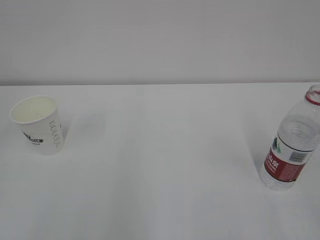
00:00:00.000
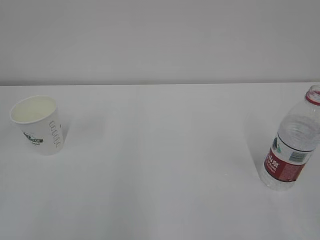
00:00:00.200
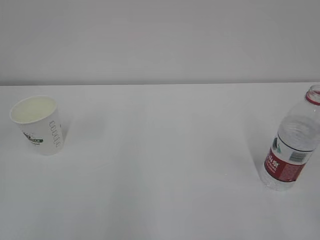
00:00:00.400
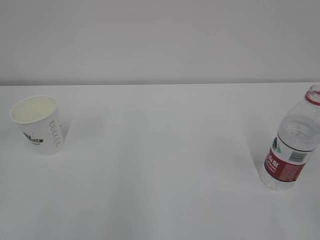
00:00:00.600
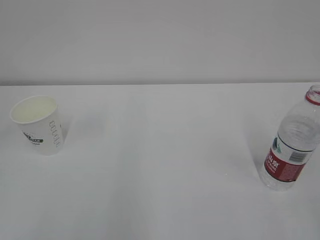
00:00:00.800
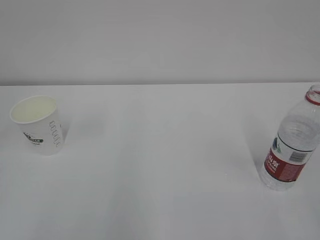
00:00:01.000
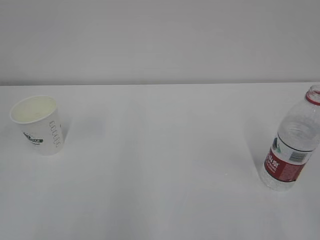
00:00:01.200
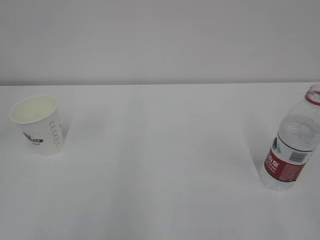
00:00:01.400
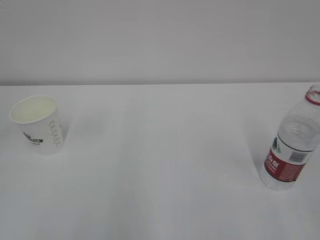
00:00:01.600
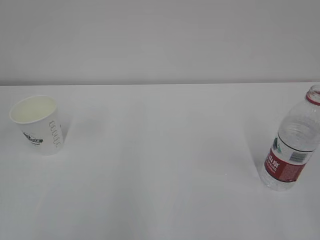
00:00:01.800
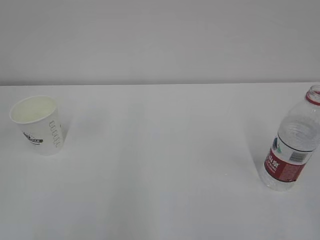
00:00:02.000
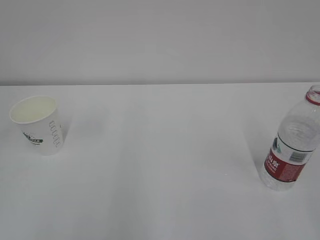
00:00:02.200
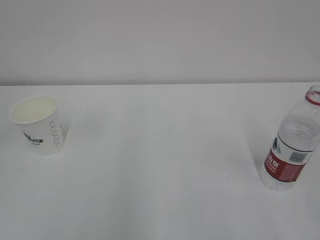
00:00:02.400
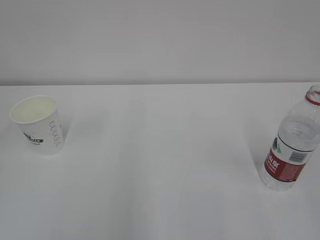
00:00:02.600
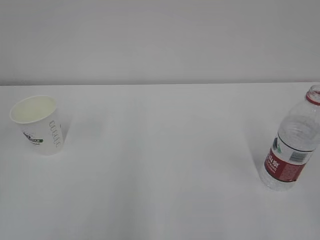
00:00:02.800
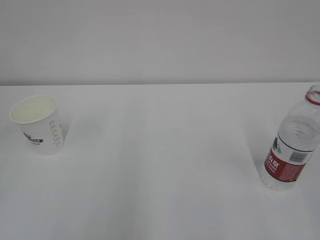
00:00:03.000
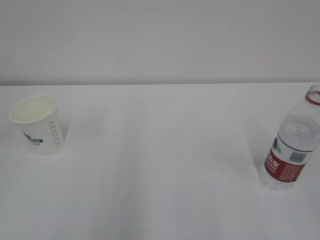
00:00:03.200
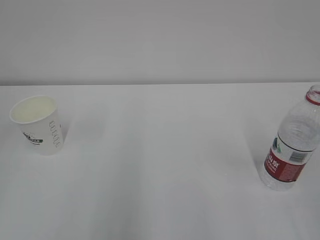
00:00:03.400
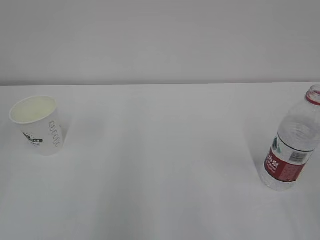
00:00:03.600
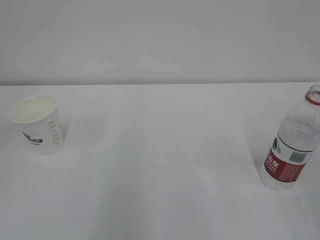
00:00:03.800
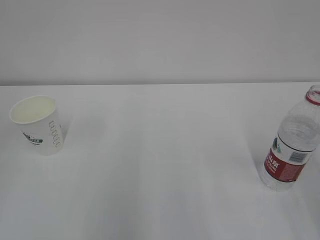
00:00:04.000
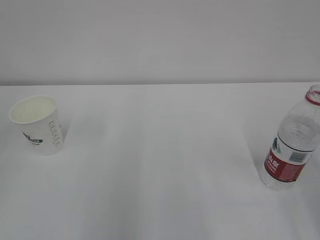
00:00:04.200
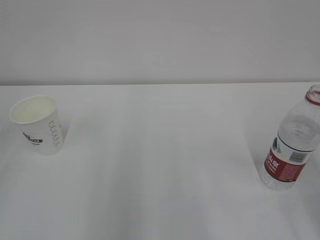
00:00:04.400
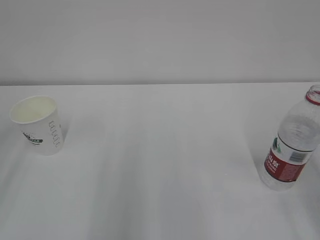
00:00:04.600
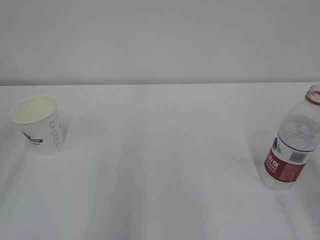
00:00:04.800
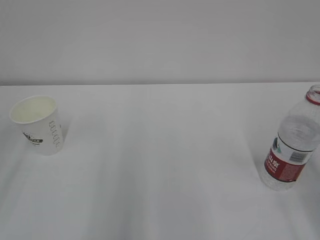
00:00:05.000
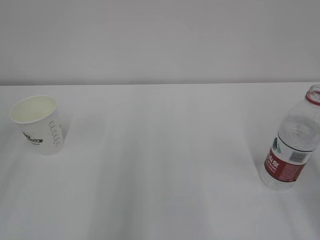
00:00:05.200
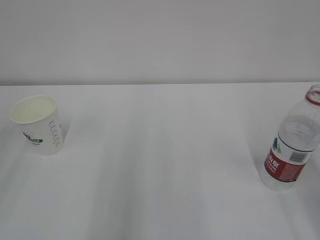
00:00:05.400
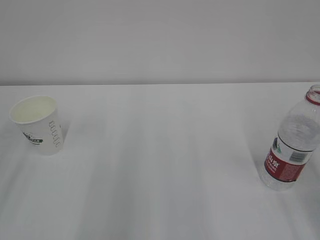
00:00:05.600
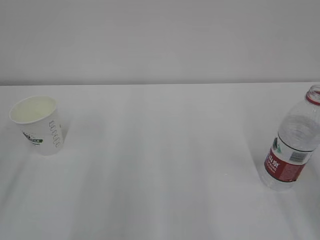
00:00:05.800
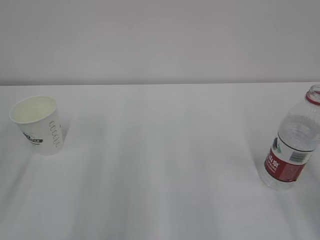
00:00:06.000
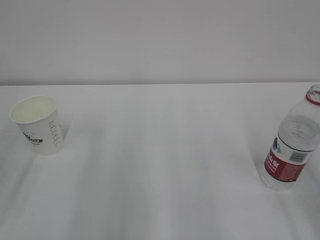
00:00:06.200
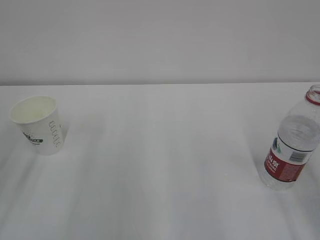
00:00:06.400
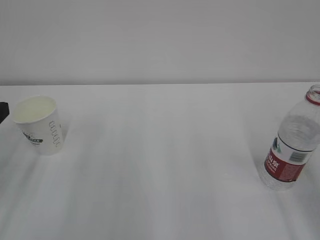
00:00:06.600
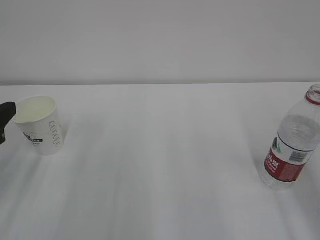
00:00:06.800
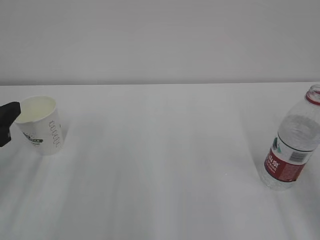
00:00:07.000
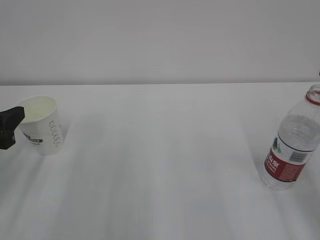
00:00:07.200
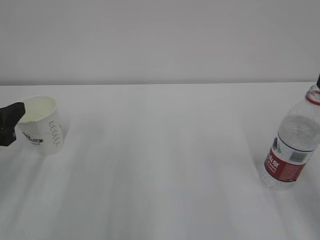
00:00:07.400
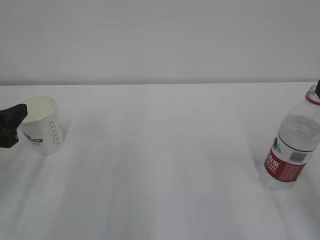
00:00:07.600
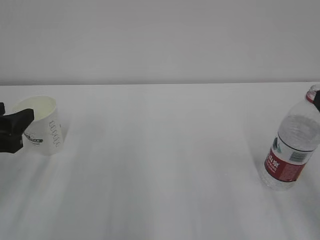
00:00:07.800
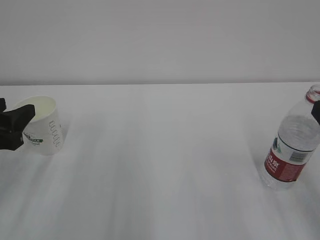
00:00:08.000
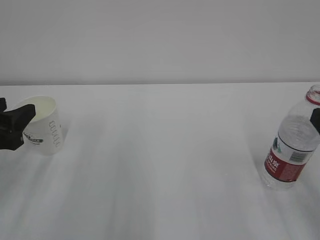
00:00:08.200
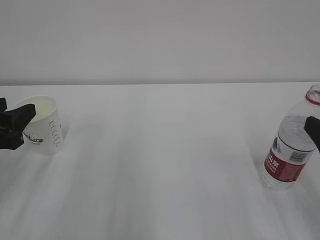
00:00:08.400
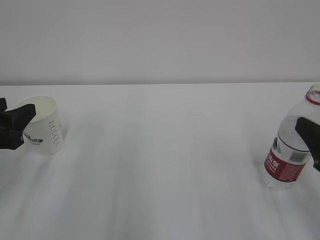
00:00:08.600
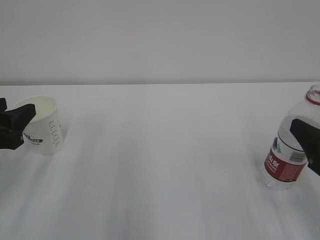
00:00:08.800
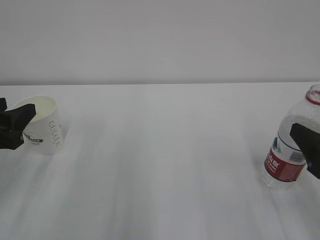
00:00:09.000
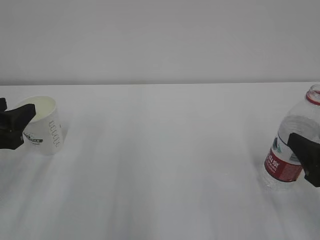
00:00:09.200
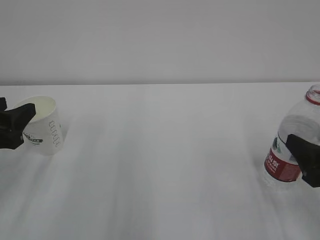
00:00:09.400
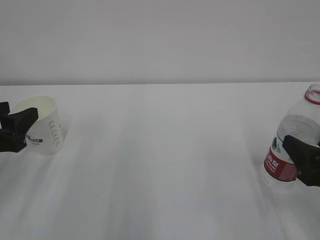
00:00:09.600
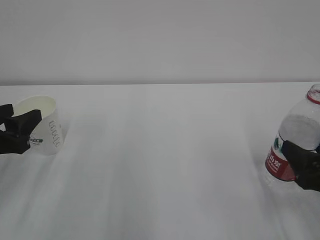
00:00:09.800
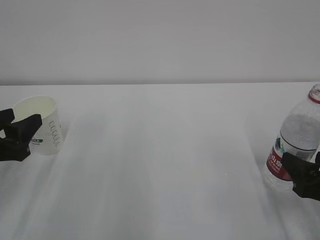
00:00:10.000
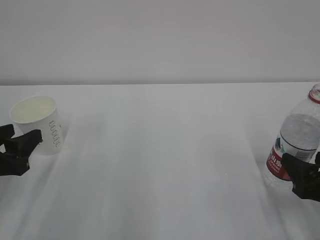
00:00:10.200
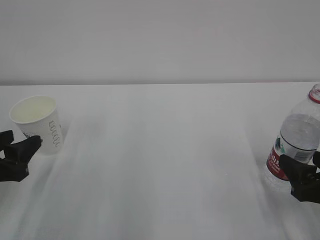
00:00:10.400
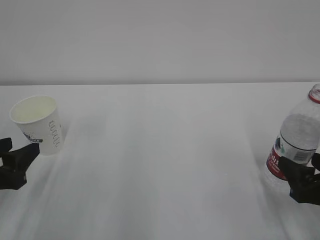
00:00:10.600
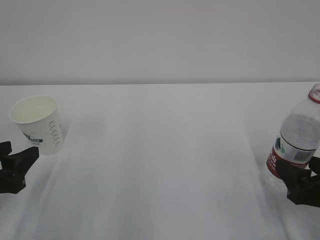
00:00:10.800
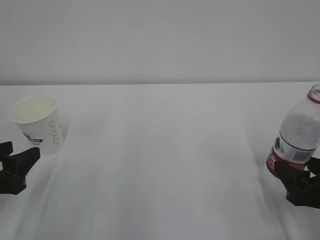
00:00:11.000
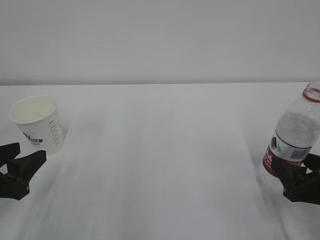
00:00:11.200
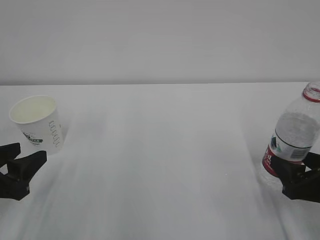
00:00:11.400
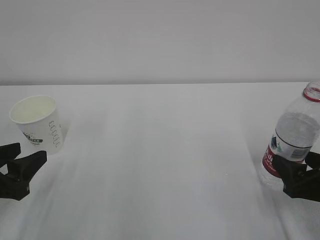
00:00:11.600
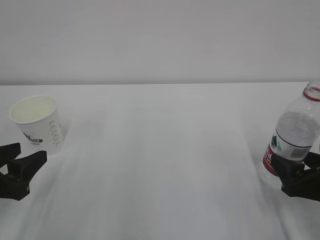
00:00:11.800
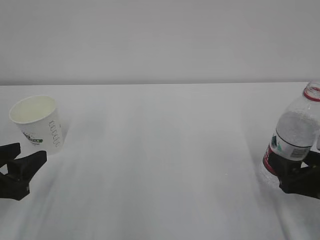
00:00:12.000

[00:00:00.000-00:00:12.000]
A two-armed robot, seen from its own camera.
00:00:06.000 to 00:00:07.600: The left gripper travels forward and downward by approximately 10 cm.
00:00:07.600 to 00:00:09.000: The right gripper moves downward, roughly 5 cm.
00:00:09.000 to 00:00:10.400: The right gripper shifts roughly 5 cm downward. The left gripper changes place by about 5 cm.
00:00:10.400 to 00:00:12.000: There are only small adjustments of the grippers.

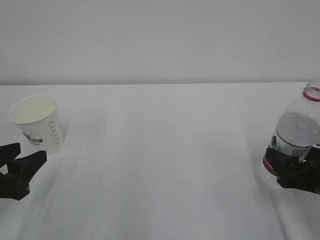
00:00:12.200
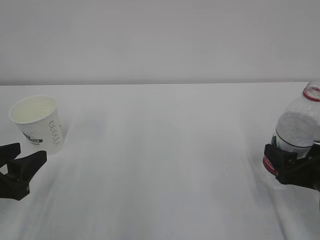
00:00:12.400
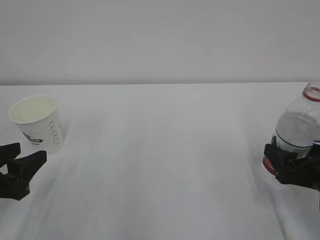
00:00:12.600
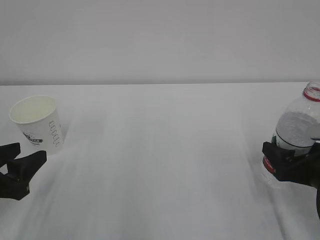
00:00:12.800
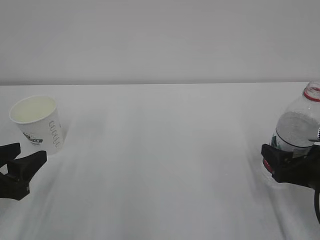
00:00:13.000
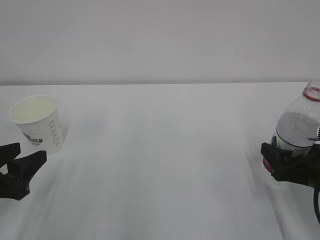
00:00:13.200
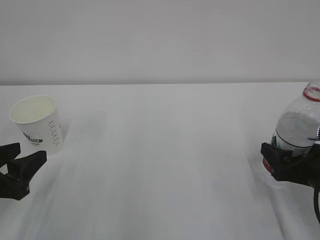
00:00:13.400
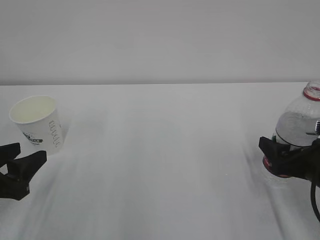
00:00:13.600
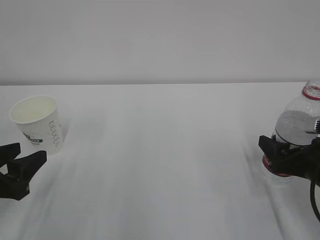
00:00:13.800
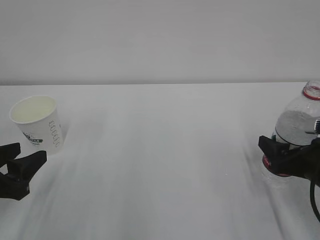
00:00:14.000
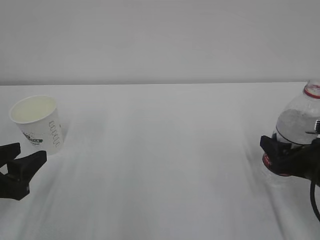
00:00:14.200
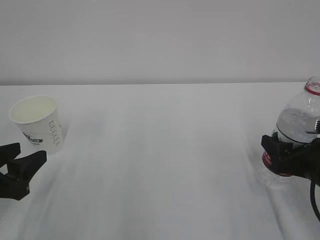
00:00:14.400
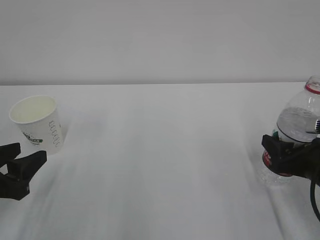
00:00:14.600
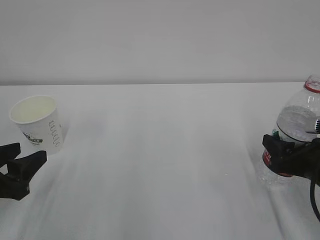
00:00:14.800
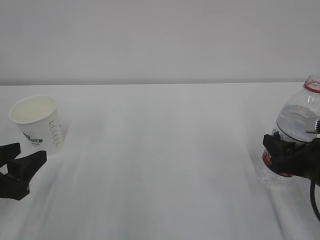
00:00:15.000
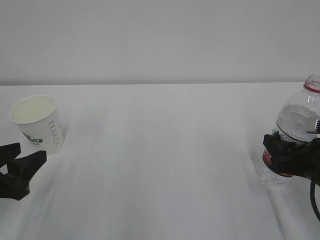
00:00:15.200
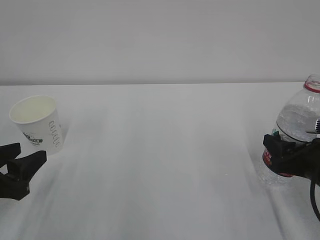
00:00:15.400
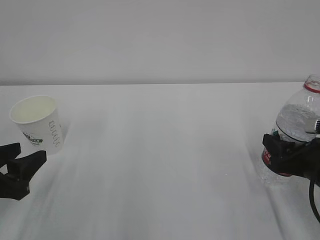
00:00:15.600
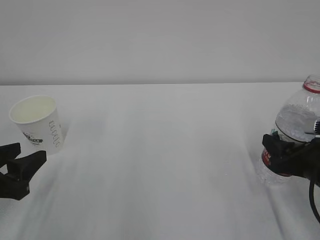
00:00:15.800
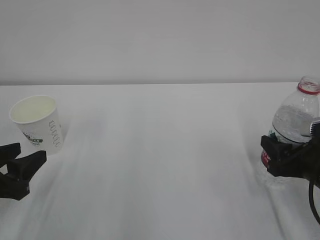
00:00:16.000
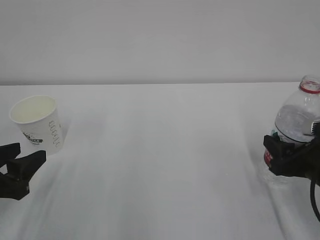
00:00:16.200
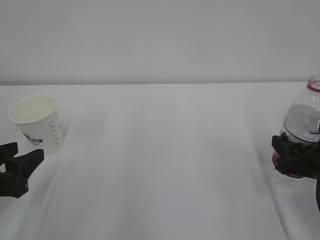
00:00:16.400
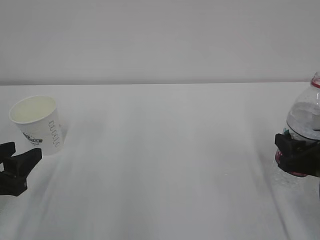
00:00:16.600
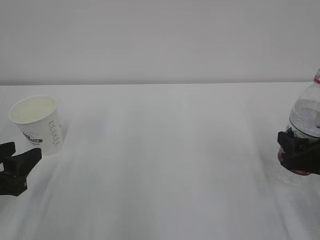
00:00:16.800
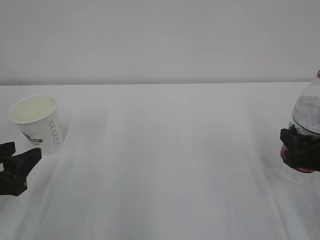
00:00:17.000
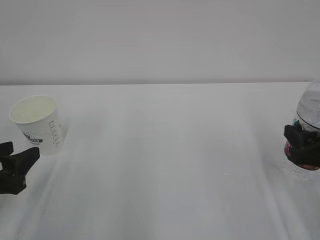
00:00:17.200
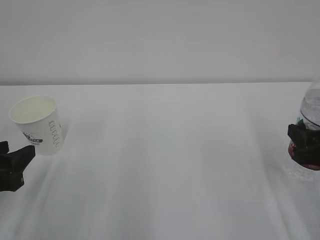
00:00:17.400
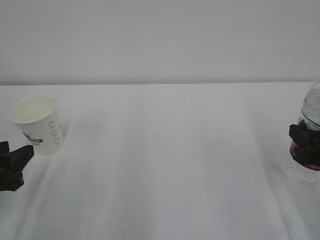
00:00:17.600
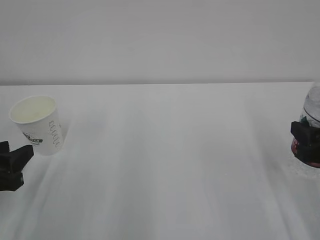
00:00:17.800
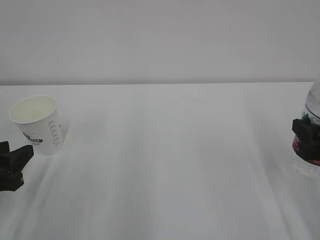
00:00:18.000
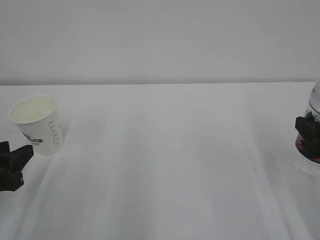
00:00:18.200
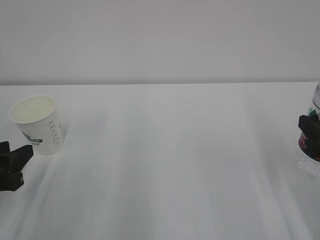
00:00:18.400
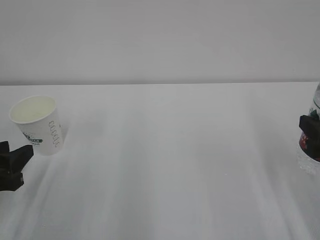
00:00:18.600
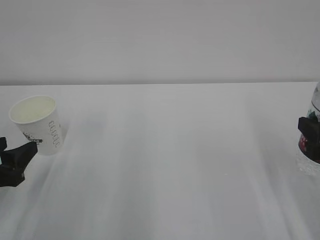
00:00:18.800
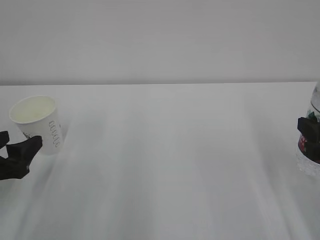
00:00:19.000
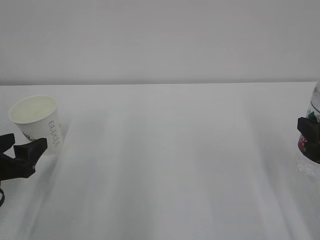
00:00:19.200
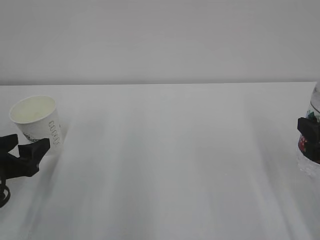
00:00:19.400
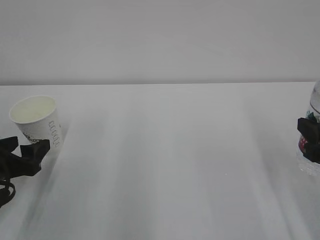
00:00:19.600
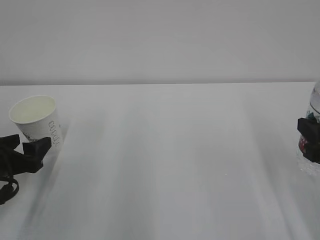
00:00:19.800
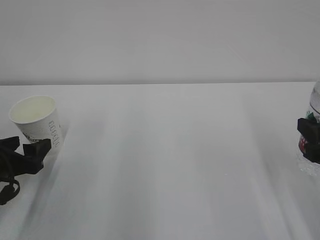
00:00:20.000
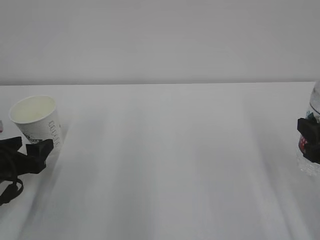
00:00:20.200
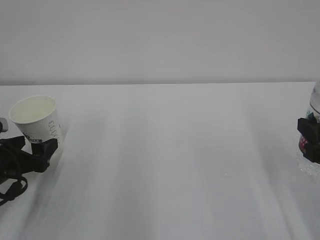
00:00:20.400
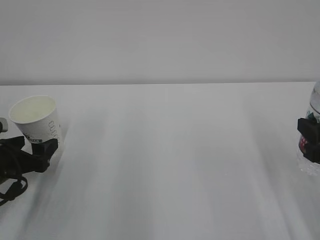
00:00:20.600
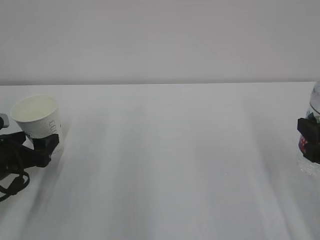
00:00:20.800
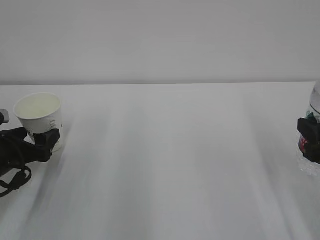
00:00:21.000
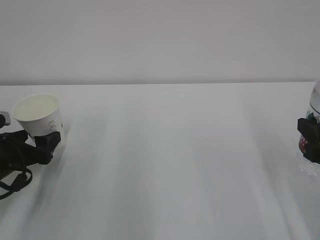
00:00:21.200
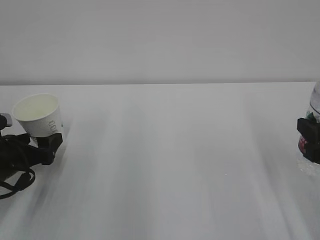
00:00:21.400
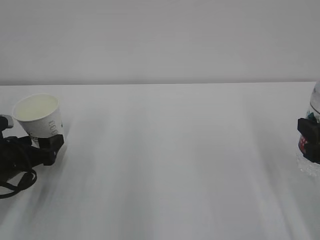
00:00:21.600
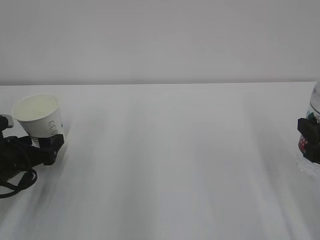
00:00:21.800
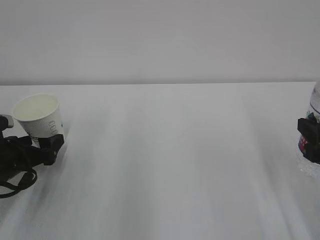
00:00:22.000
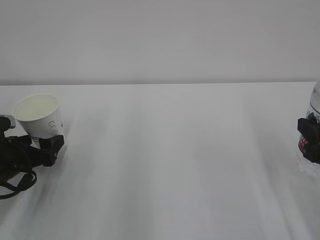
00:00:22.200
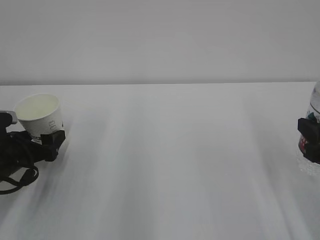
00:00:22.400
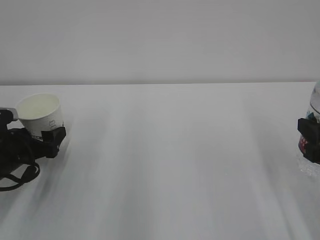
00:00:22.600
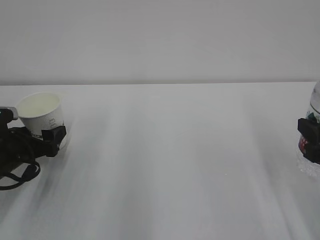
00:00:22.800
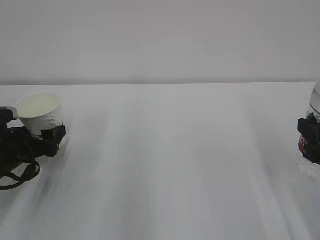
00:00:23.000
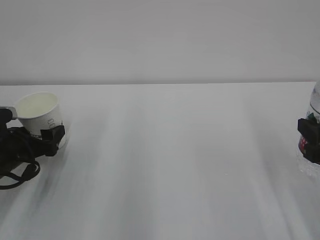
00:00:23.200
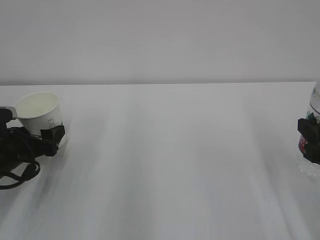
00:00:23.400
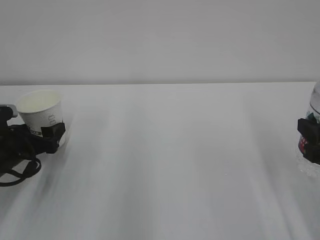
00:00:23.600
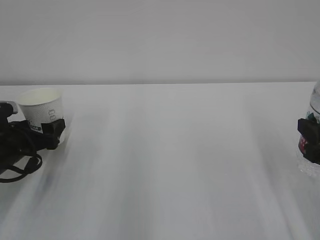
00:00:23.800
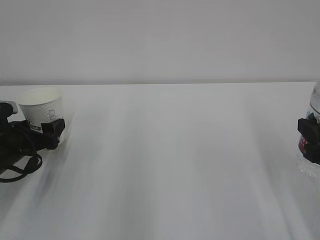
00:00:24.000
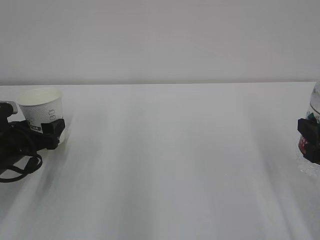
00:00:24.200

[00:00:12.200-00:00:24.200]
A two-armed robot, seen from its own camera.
00:00:12.200 to 00:00:13.800: There are only small adjustments of the grippers.
00:00:13.800 to 00:00:15.200: The right gripper closes.
00:00:15.200 to 00:00:16.600: The grippers make only small movements.
00:00:16.600 to 00:00:18.200: The right gripper is displaced upward by roughly 5 cm.
00:00:18.200 to 00:00:19.800: The left gripper shifts approximately 5 cm forward, and opens up.
00:00:19.800 to 00:00:22.600: There are only small adjustments of the grippers.
00:00:22.600 to 00:00:24.200: The two grippers keep their place.
